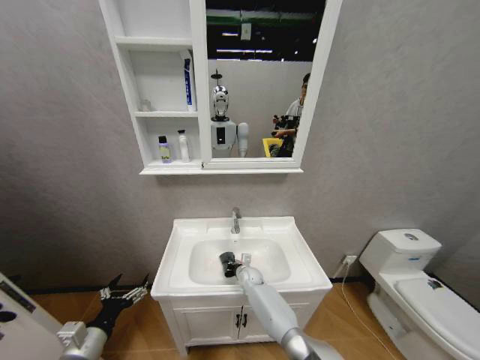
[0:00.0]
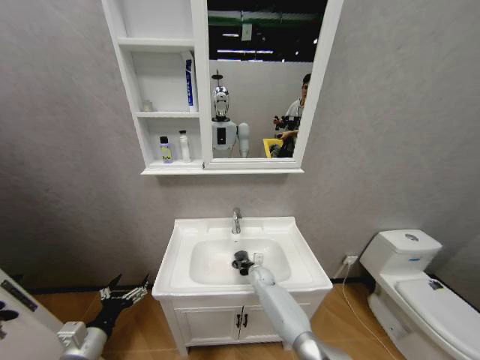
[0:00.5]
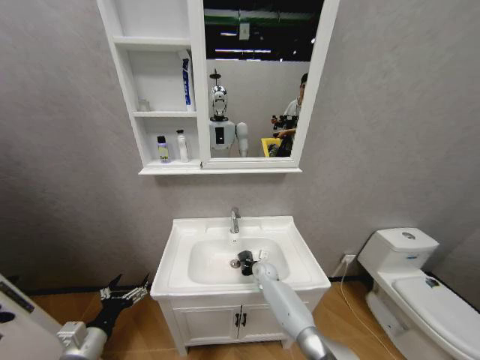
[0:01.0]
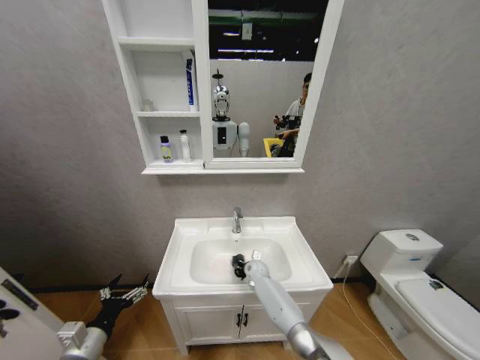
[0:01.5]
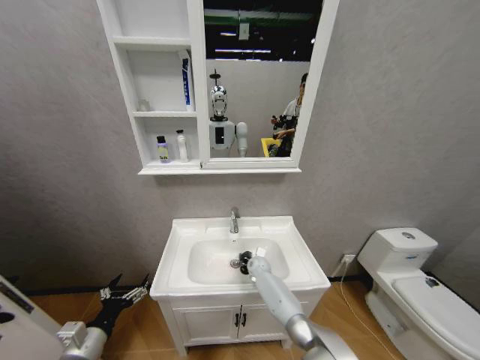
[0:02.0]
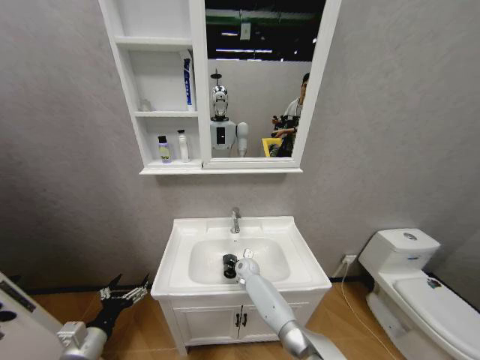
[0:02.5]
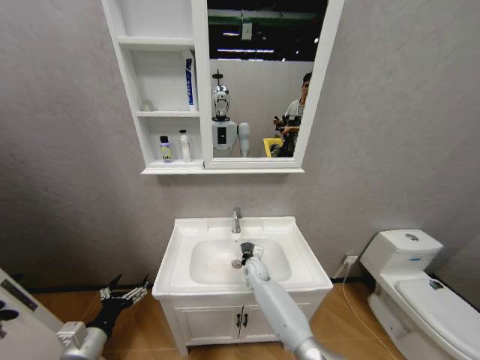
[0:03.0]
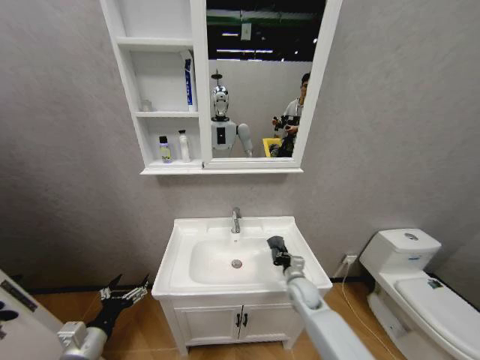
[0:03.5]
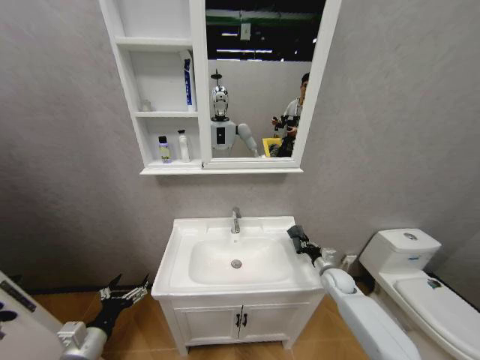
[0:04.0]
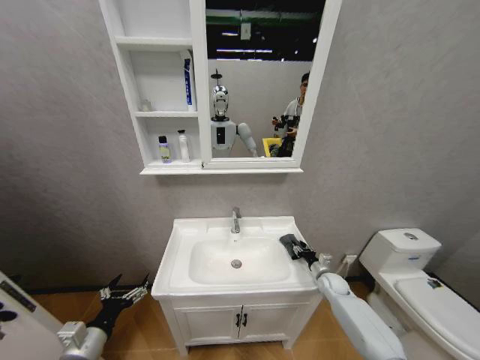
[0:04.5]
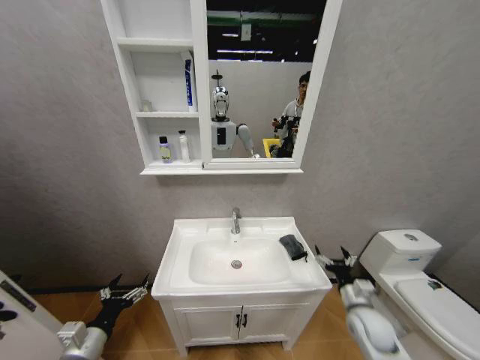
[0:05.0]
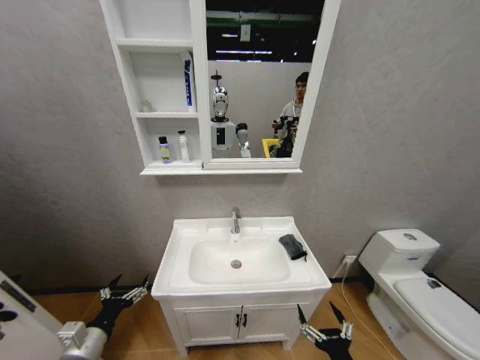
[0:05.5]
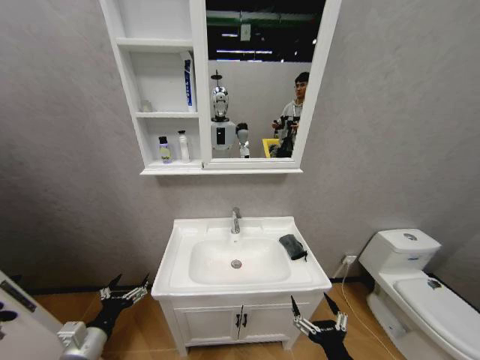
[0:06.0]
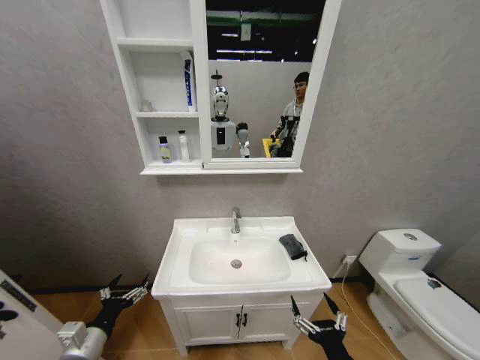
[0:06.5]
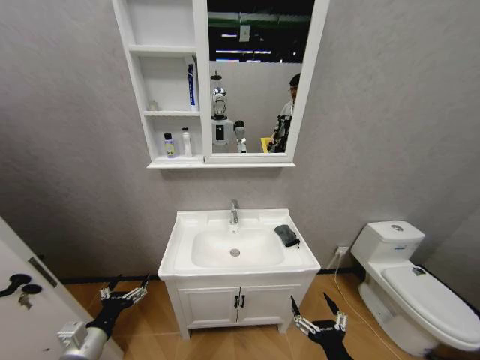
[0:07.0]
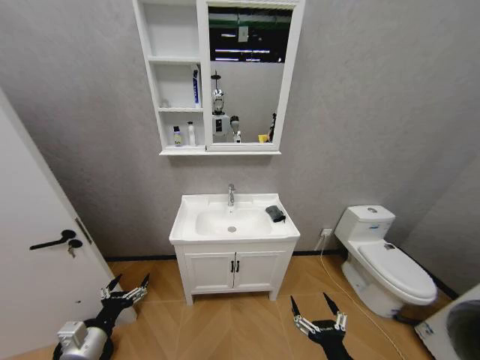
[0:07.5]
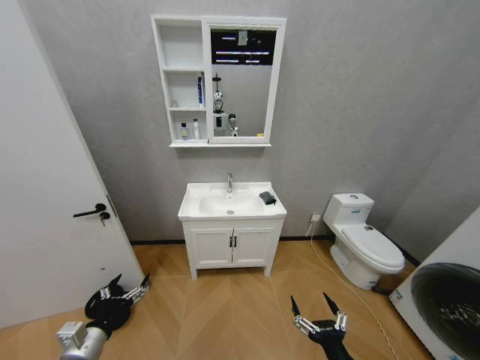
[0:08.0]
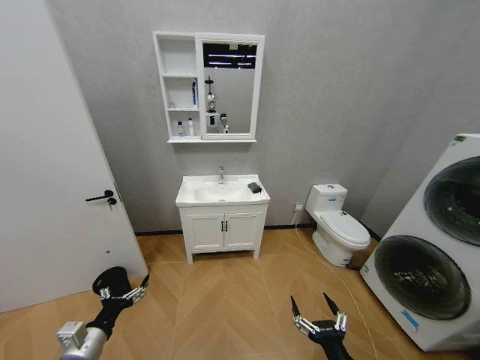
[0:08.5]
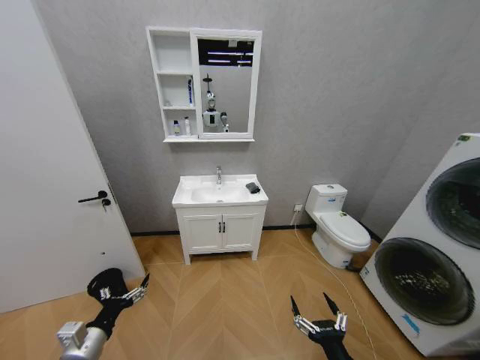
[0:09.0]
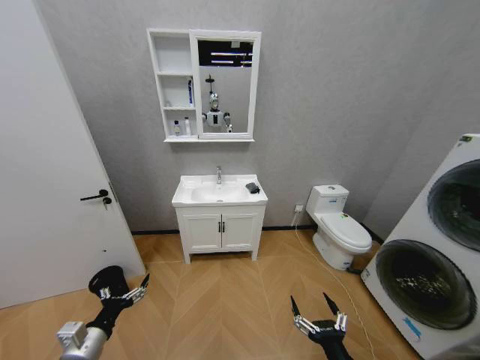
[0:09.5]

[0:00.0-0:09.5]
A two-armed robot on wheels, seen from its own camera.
Task of the whole recording: Move facial cleanser and shampoo from washbasin to cabinet, then wipe washbasin with towel.
0:00.0 to 0:02.0: The right gripper changes place by some 5 cm.
0:02.0 to 0:04.0: The right gripper travels to the right by roughly 25 cm.
0:04.0 to 0:05.5: The right gripper travels backward by about 35 cm, and opens.

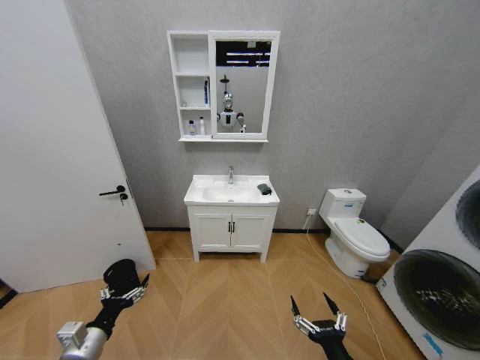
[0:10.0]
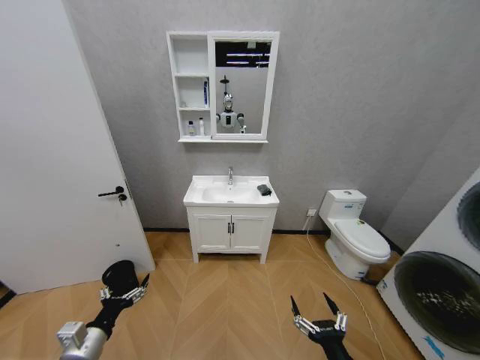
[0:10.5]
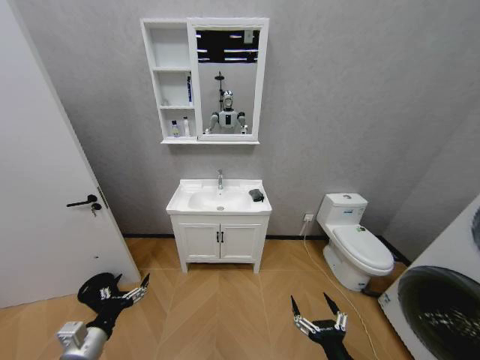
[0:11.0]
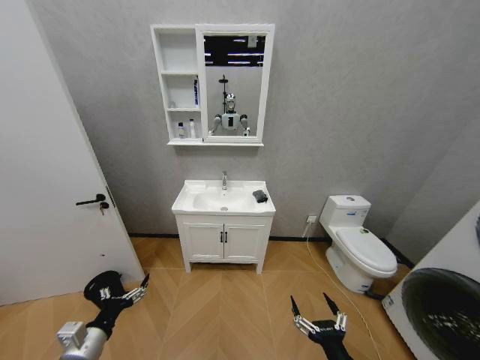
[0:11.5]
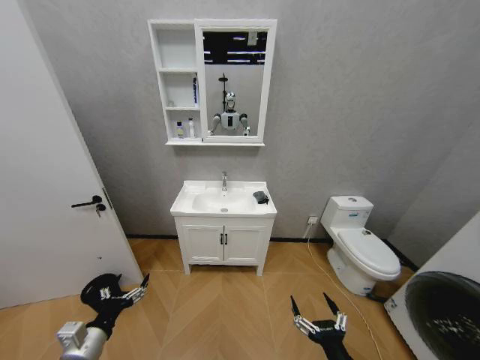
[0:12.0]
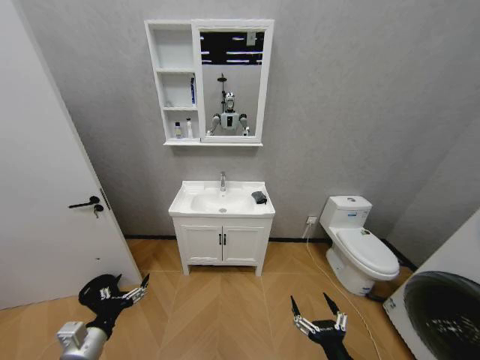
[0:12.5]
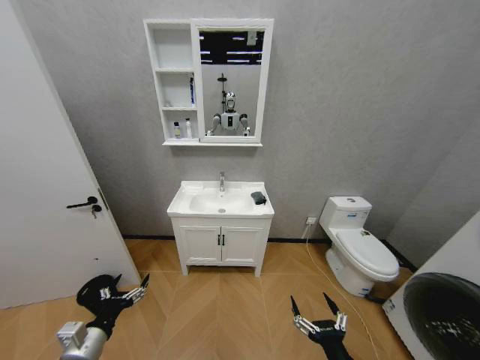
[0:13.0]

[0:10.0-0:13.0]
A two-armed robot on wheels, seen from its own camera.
Task of the whole recording: Move facial cleanser and shampoo from washbasin to cabinet, then wipe washbasin with towel.
0:11.5 to 0:13.0: Both grippers stay put.

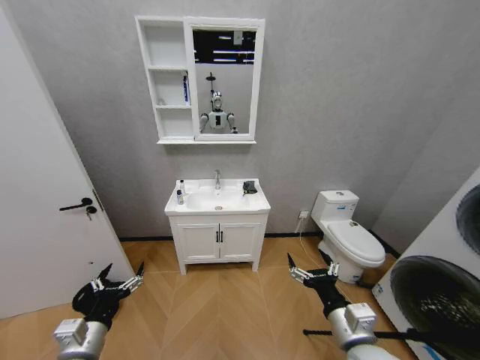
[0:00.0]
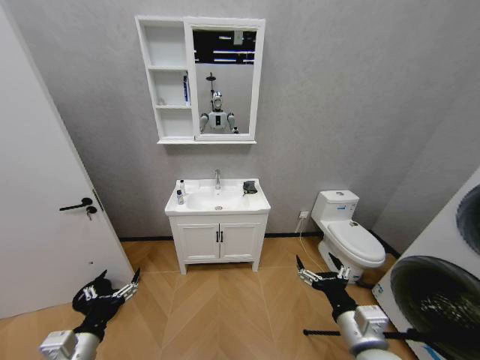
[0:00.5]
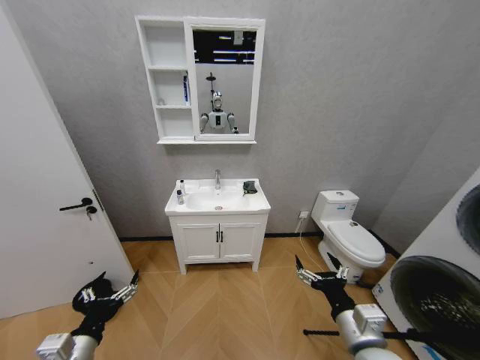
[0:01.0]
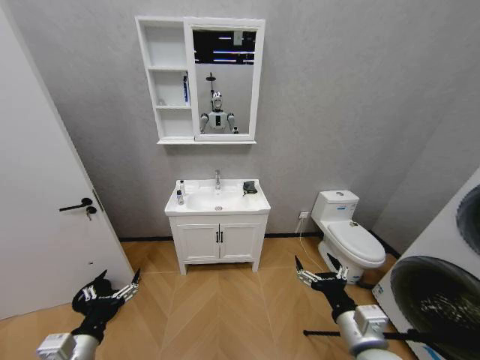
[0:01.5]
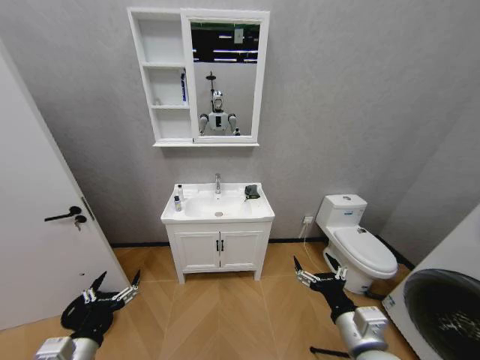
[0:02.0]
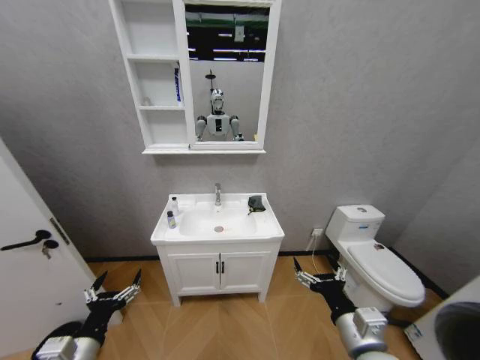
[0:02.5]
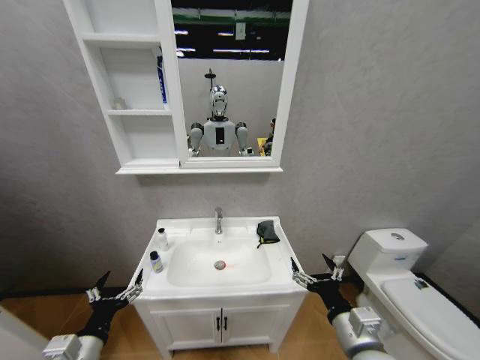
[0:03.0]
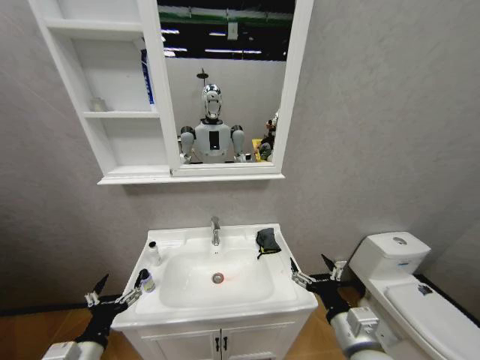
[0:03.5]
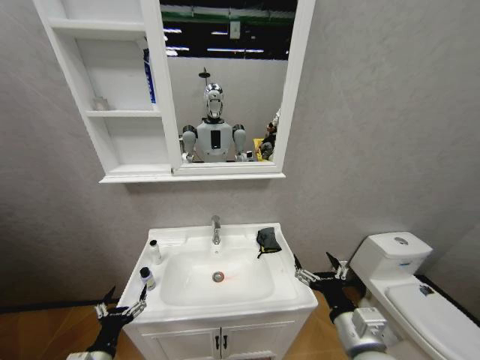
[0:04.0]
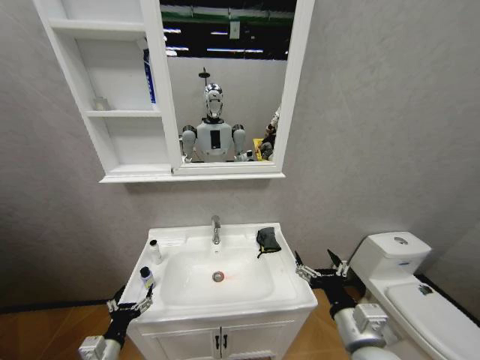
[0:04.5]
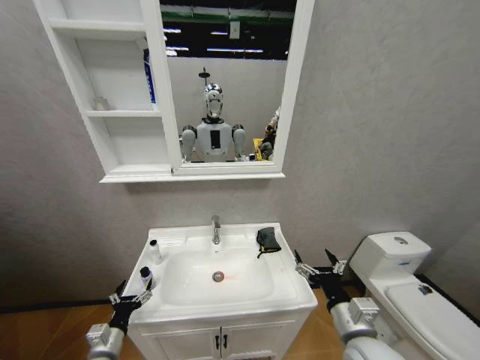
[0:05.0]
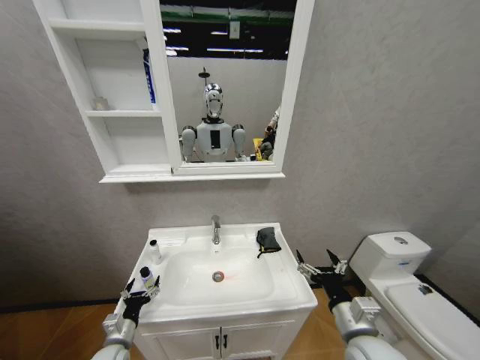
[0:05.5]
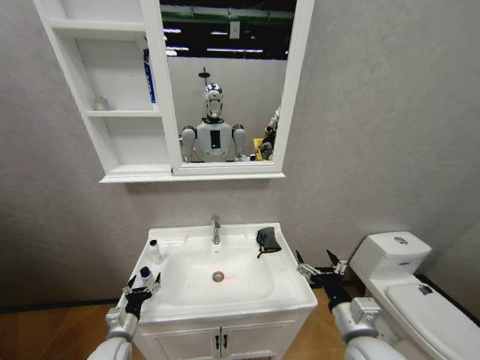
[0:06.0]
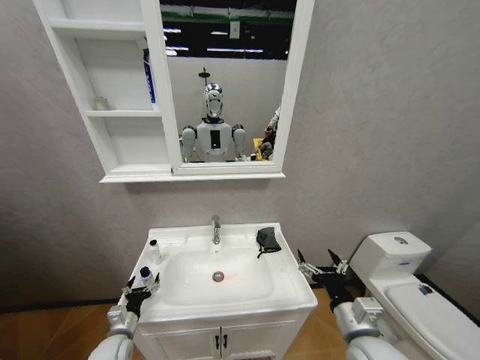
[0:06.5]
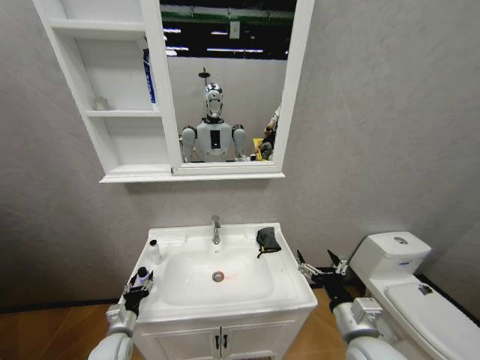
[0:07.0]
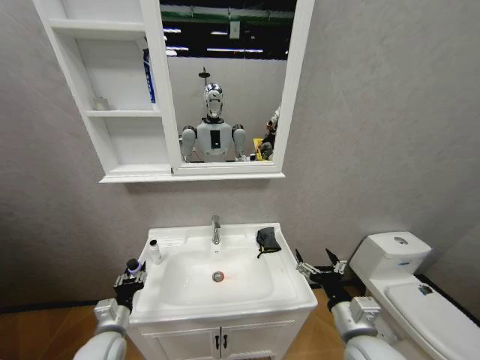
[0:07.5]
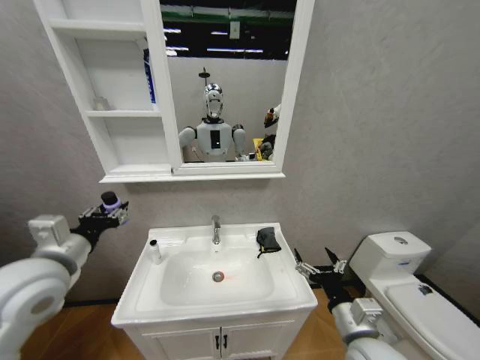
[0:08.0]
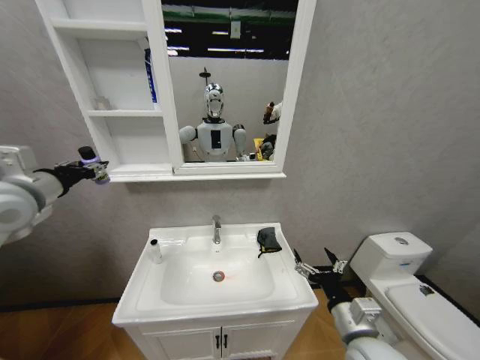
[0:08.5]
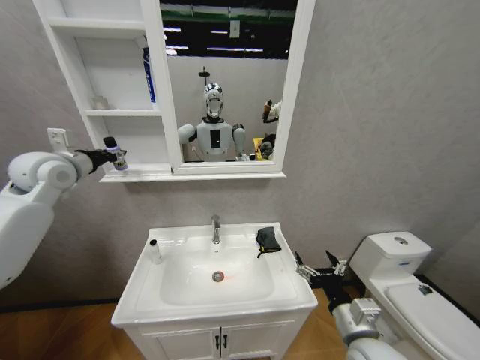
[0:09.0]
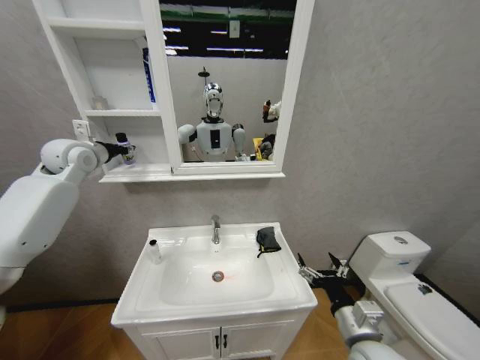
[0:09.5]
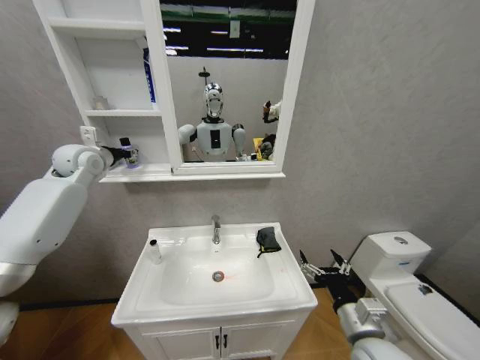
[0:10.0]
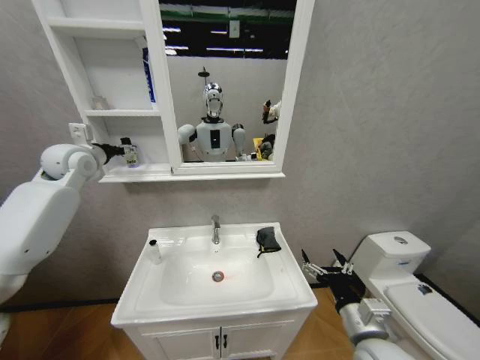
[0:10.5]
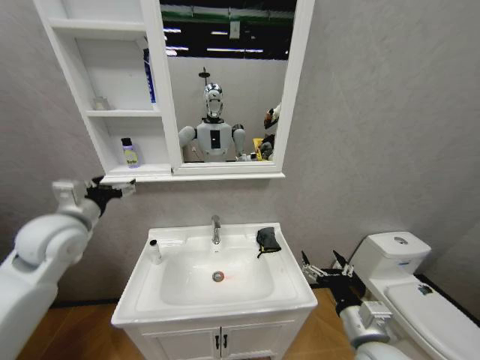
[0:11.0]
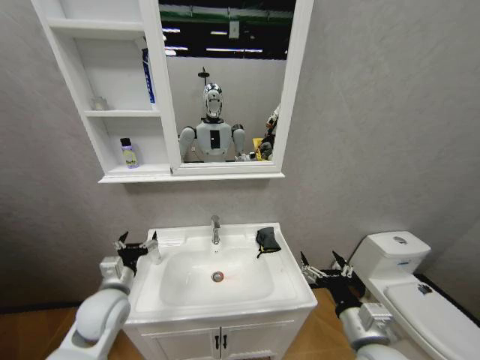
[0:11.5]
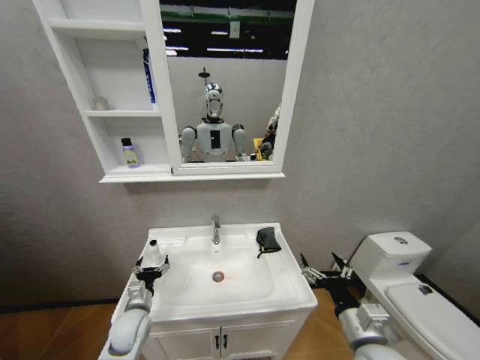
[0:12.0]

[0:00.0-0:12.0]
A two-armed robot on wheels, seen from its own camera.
Task of the whole recording: Move facial cleanser and shampoo from washbasin to cabinet, then wipe washbasin with towel.
0:02.0 to 0:04.0: The left gripper shifts approximately 10 cm downward.
0:04.0 to 0:06.0: The left gripper heads forward and downward, covering approximately 10 cm.
0:06.0 to 0:08.0: The left gripper heads upward, covering approximately 35 cm, and closes up.
0:08.0 to 0:10.0: The left gripper goes approximately 30 cm forward and upward.
0:10.0 to 0:12.0: The left gripper moves downward and backward, about 50 cm, and opens up.

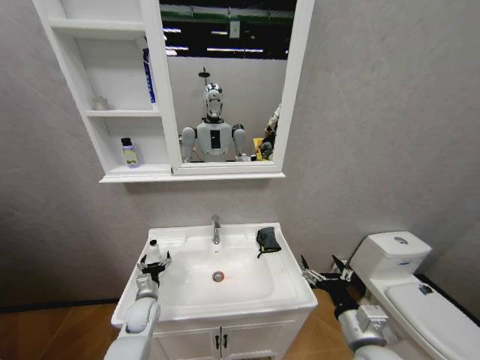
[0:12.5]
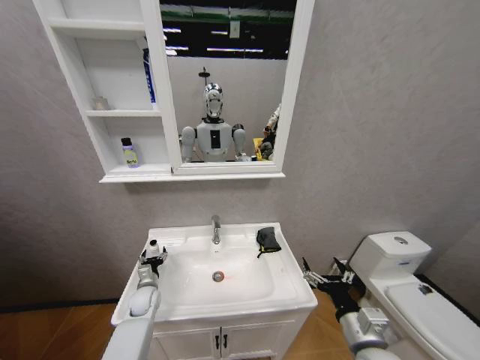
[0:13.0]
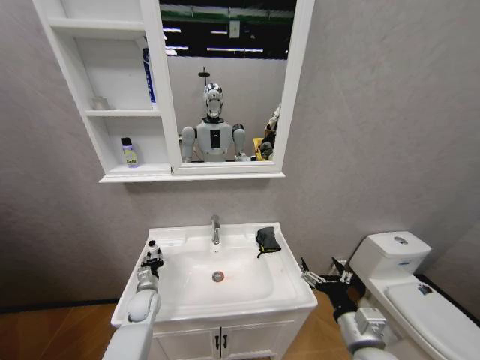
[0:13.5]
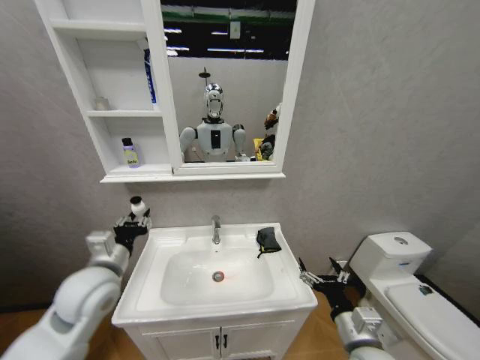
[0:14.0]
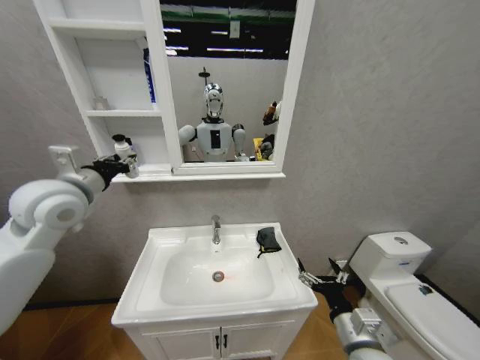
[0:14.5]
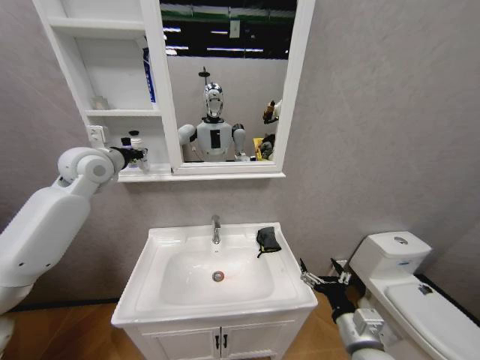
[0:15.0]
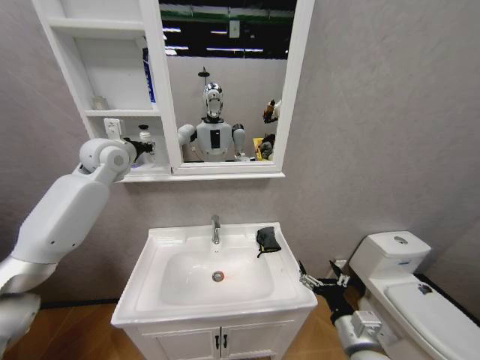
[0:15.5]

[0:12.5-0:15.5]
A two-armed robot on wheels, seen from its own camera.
Task of the whole recording: Move facial cleanser and shampoo from washbasin to cabinet, then wipe washbasin with towel.
0:12.5 to 0:14.0: The left gripper goes roughly 25 cm upward, and closes.
0:14.0 to 0:15.5: The left gripper is displaced upward and forward by roughly 30 cm.
